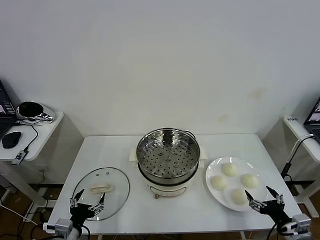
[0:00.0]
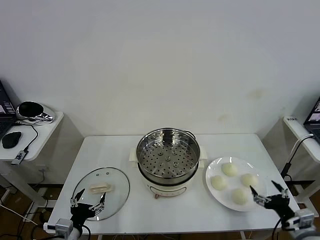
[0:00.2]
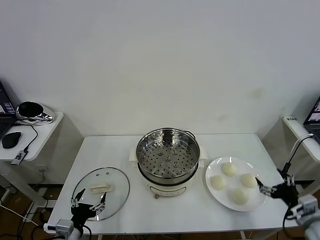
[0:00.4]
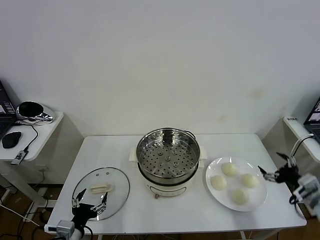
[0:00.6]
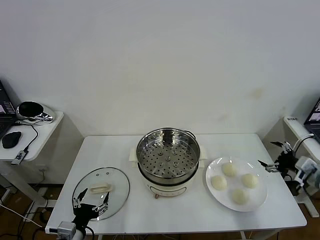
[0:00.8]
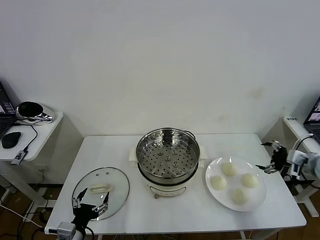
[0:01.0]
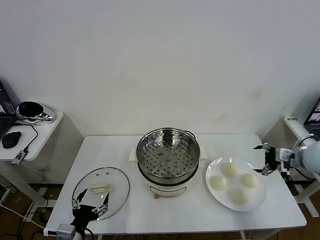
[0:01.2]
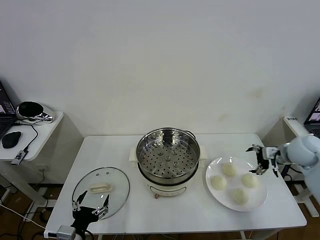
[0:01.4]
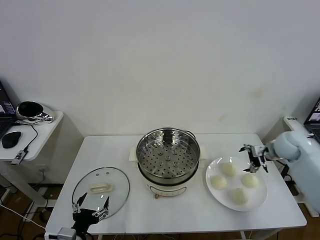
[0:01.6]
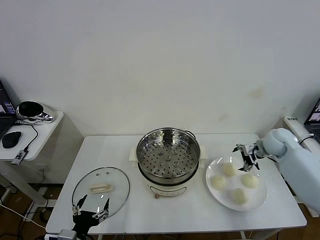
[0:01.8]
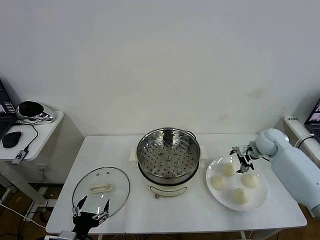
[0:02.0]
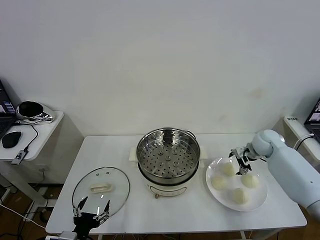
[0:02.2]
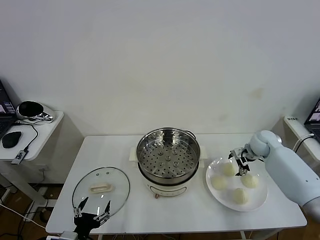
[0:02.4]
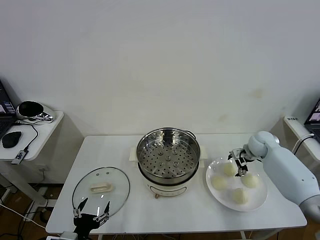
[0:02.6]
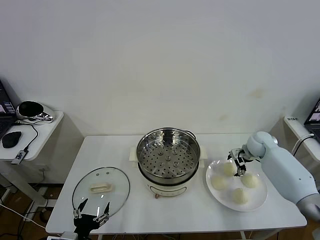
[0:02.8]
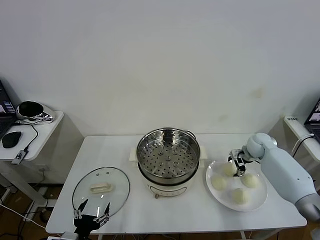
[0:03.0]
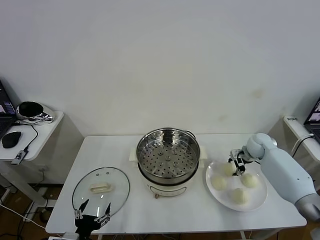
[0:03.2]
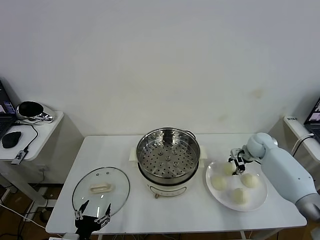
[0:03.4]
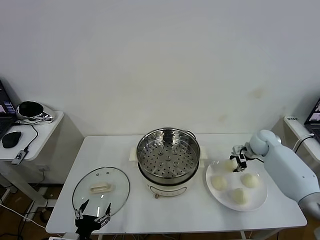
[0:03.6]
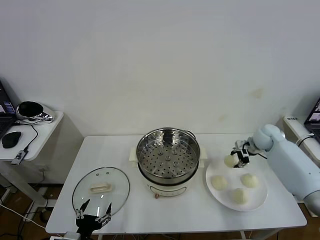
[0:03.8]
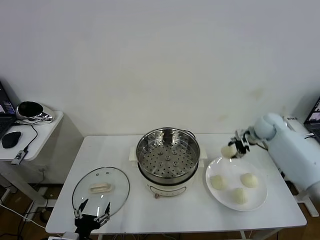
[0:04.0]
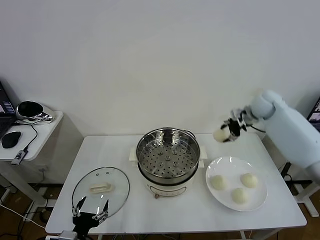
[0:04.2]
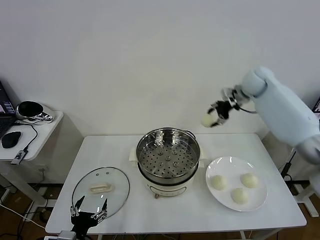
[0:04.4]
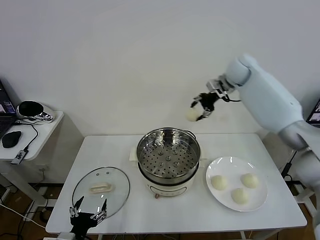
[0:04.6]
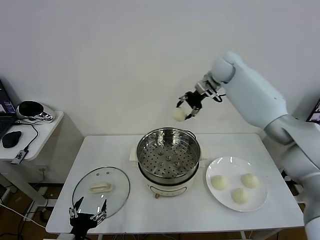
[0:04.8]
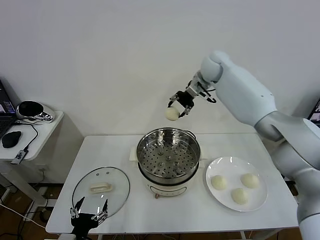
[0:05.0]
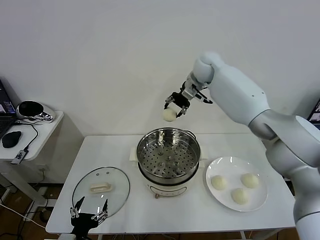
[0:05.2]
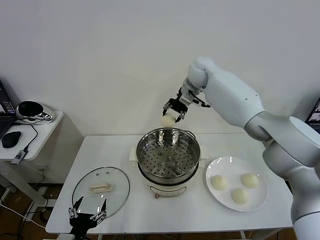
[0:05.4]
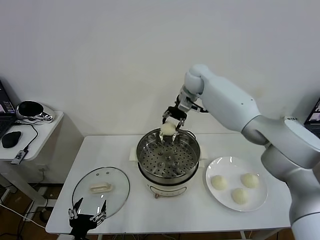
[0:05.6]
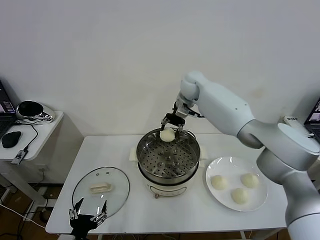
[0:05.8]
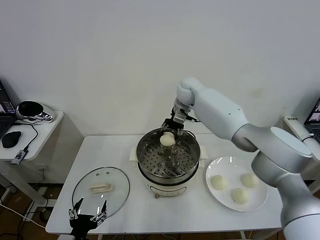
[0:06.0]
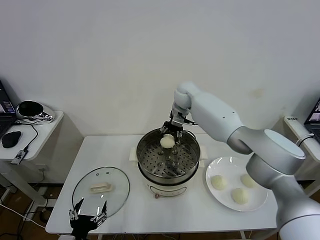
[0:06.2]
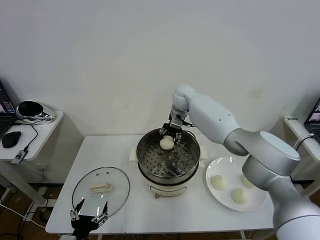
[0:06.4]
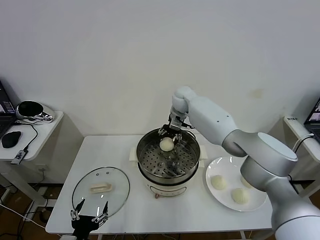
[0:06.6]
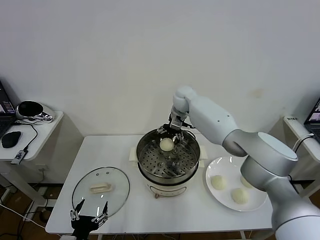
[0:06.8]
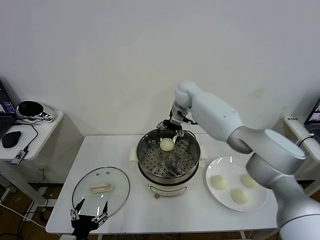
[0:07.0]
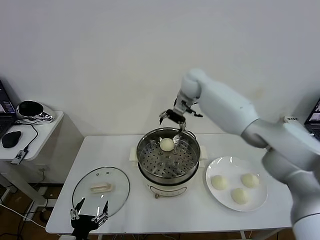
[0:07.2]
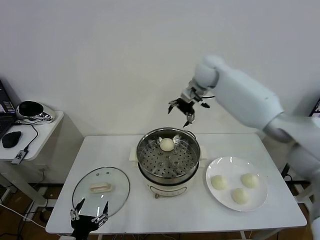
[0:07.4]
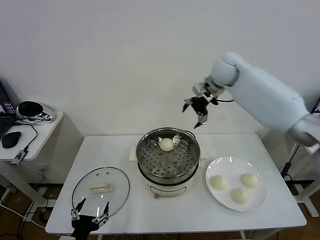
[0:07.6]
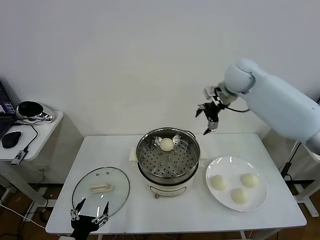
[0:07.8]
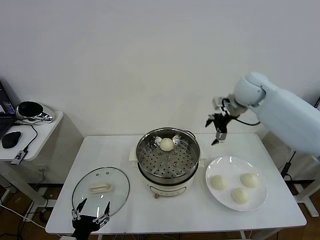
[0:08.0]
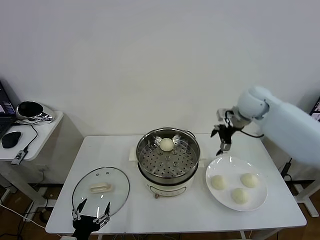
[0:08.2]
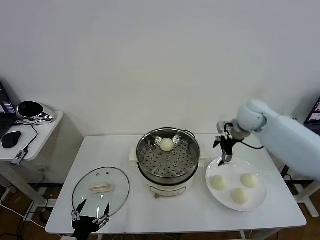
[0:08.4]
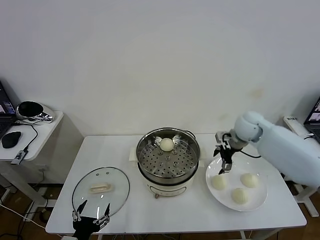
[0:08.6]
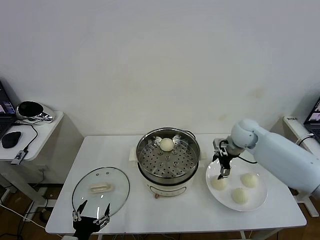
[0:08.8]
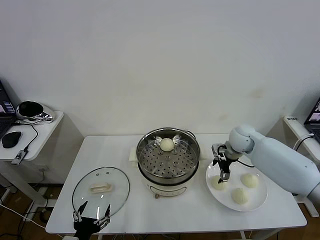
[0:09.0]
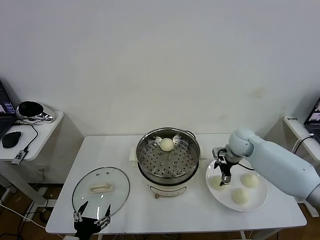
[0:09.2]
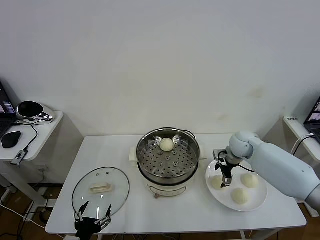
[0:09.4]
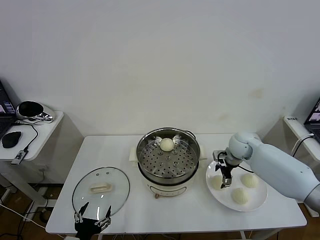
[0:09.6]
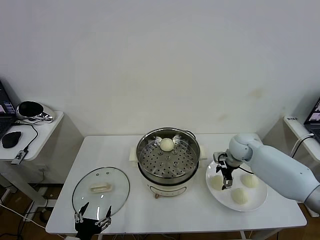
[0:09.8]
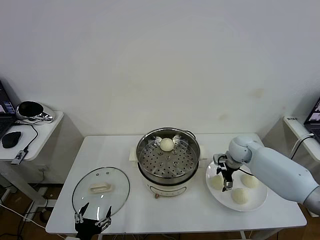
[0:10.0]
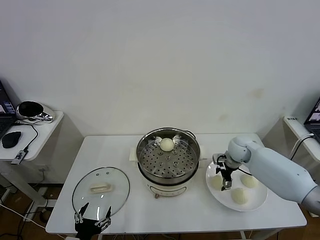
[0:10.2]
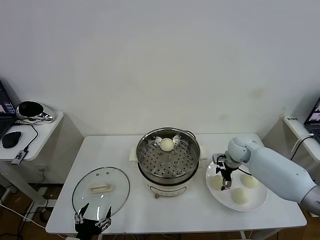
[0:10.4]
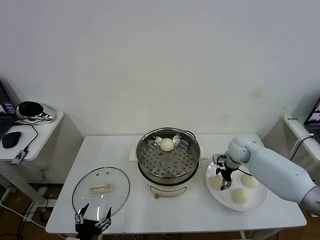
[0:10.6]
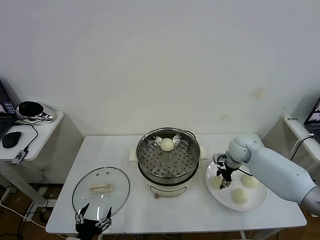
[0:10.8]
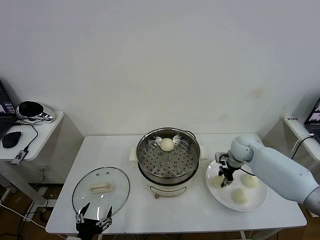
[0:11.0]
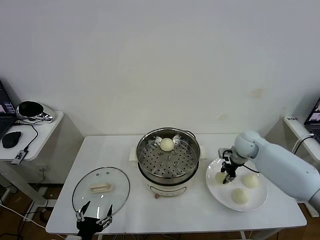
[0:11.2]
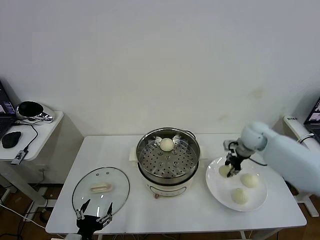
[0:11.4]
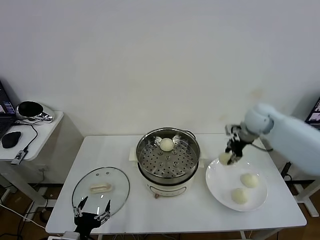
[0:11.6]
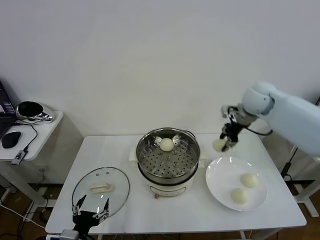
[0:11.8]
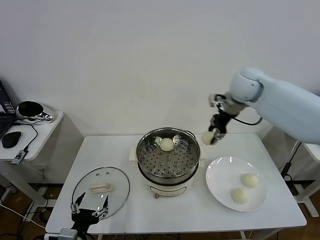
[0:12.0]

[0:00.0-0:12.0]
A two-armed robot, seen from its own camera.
Task of the whole recording: take steamed baozi put them in steamer then cover it.
Step, 0:00.0 to 0:03.4: Grasp the baozi in the plate with right gripper.
Step, 0:03.6 to 0:06.8: Place the baozi on the steamer with right gripper.
Step, 0:07.0 to 0:10.8: Grasp the baozi in the plate with right gripper.
0:01.6 to 0:03.0: The right gripper travels downward by roughly 5 cm, and closes up.
0:03.0 to 0:04.4: The right gripper moves upward and to the left, about 30 cm.
0:04.4 to 0:06.0: The right gripper heads to the left and downward, covering approximately 20 cm.
0:06.0 to 0:07.6: The right gripper travels to the right and upward by about 15 cm, and opens up.
0:07.6 to 0:09.0: The right gripper goes roughly 20 cm downward.
0:09.0 to 0:10.4: The grippers stay close to where they were, moving slightly.
0:10.4 to 0:12.0: The right gripper moves upward, roughly 25 cm, and closes.

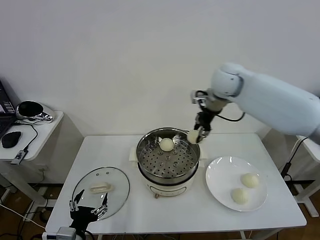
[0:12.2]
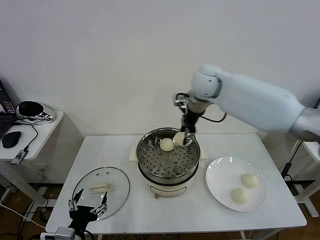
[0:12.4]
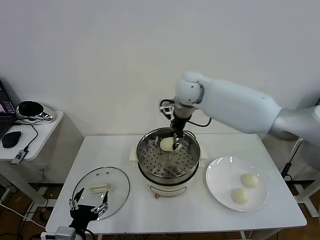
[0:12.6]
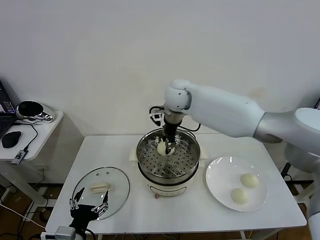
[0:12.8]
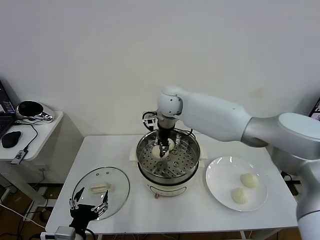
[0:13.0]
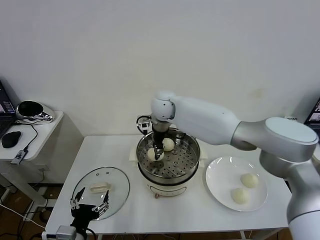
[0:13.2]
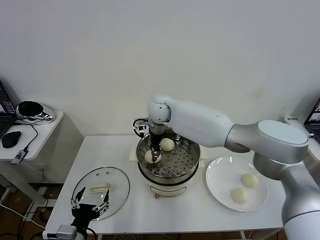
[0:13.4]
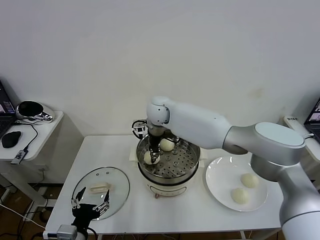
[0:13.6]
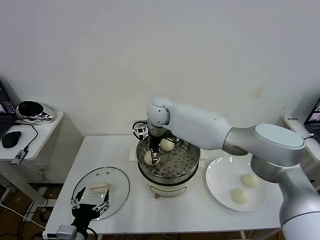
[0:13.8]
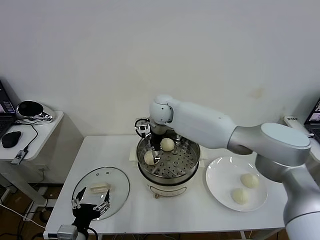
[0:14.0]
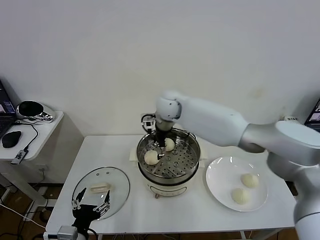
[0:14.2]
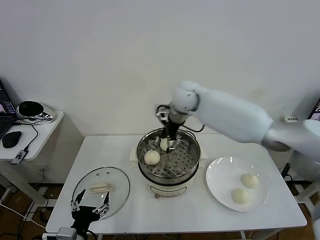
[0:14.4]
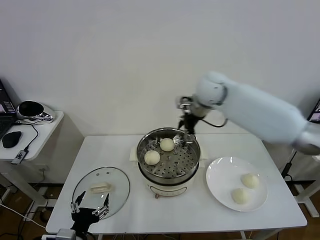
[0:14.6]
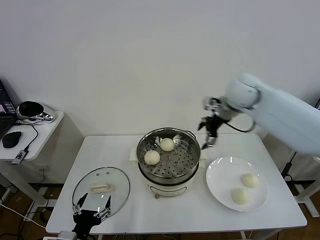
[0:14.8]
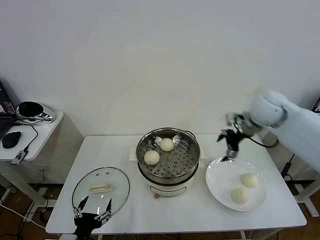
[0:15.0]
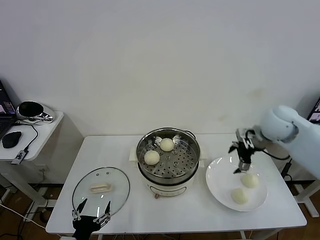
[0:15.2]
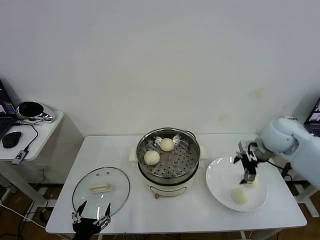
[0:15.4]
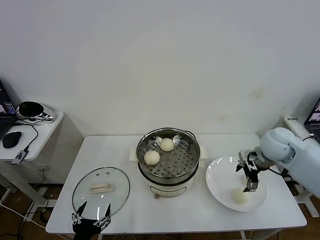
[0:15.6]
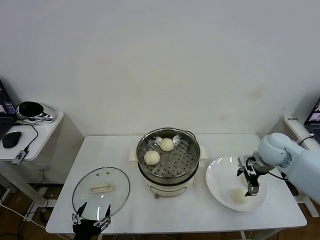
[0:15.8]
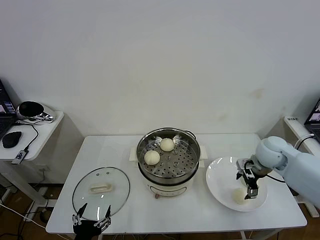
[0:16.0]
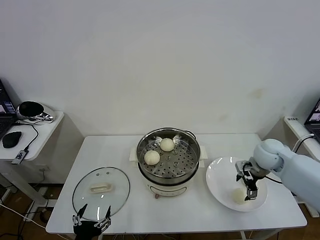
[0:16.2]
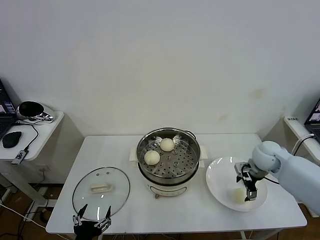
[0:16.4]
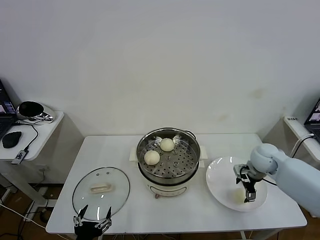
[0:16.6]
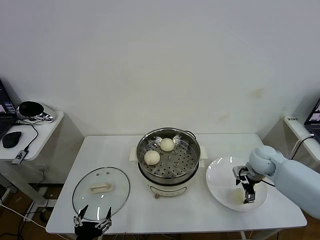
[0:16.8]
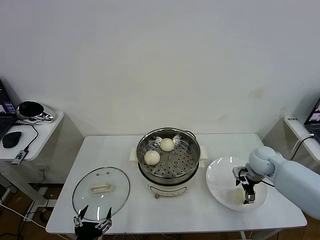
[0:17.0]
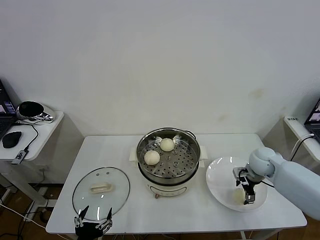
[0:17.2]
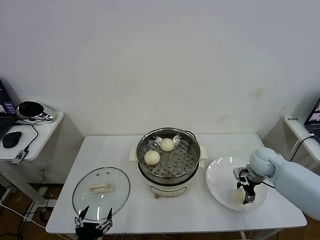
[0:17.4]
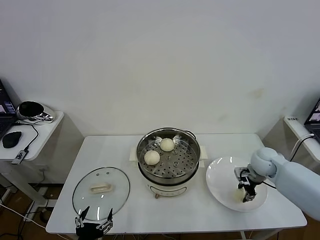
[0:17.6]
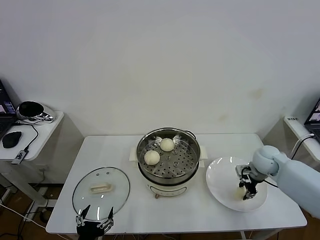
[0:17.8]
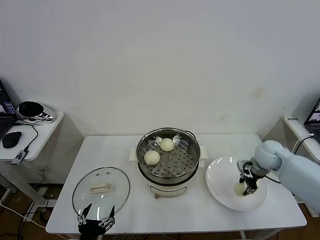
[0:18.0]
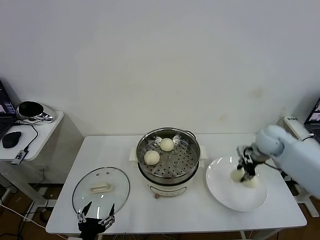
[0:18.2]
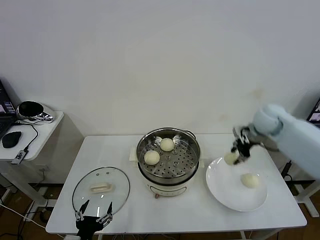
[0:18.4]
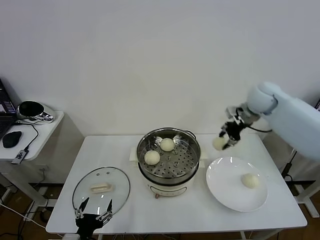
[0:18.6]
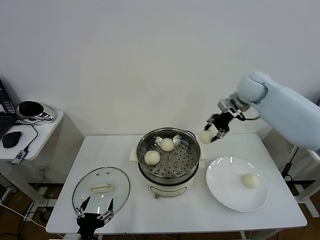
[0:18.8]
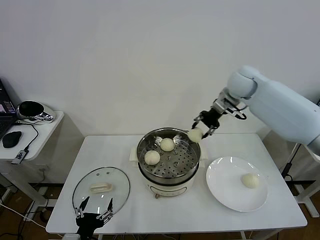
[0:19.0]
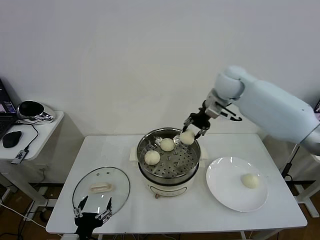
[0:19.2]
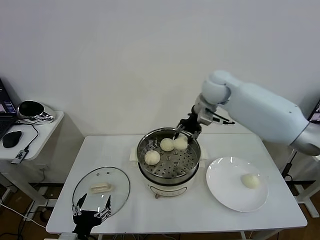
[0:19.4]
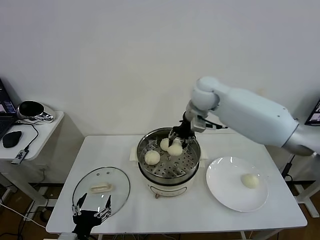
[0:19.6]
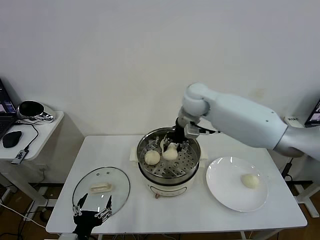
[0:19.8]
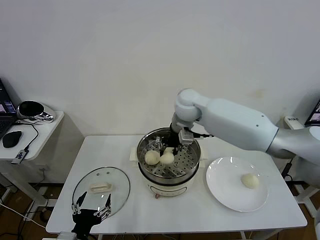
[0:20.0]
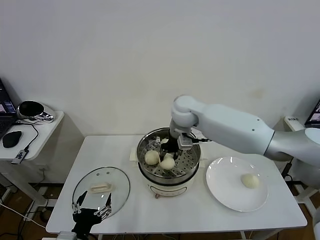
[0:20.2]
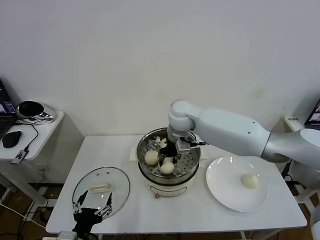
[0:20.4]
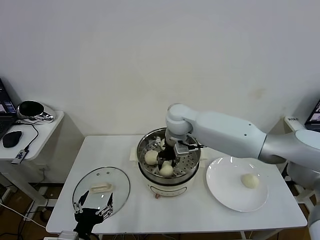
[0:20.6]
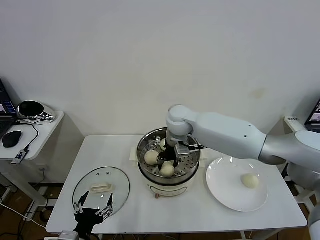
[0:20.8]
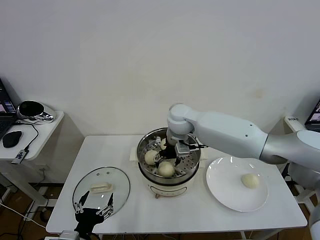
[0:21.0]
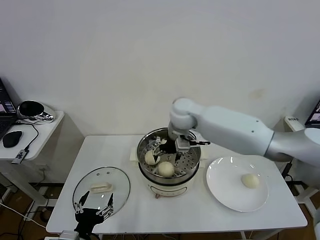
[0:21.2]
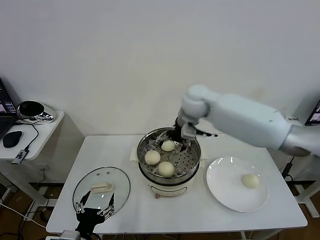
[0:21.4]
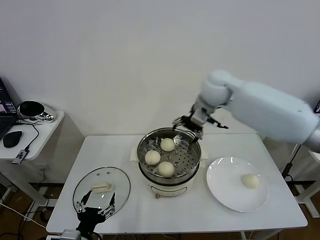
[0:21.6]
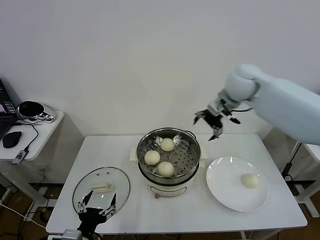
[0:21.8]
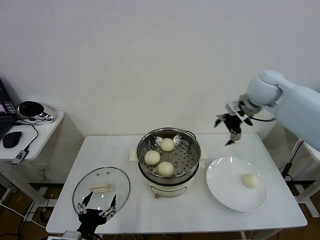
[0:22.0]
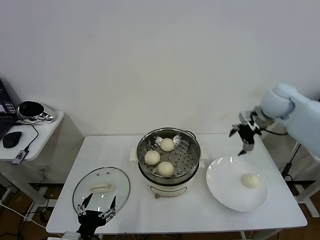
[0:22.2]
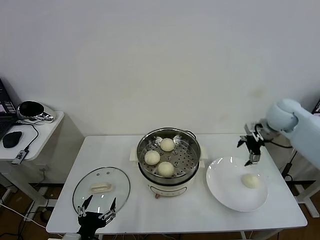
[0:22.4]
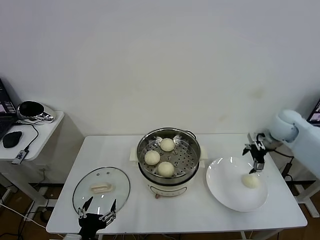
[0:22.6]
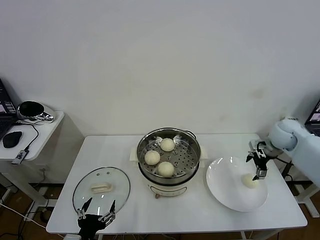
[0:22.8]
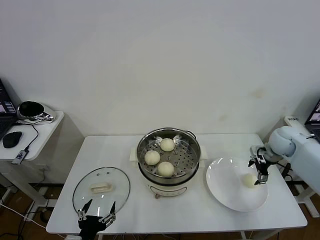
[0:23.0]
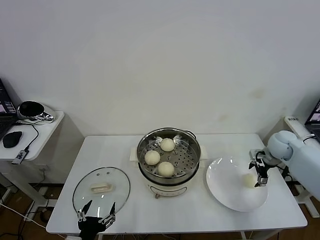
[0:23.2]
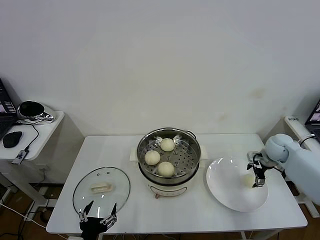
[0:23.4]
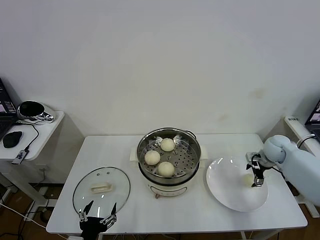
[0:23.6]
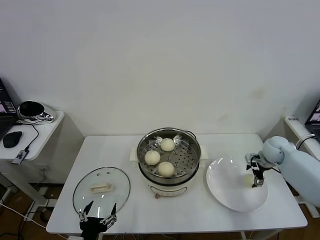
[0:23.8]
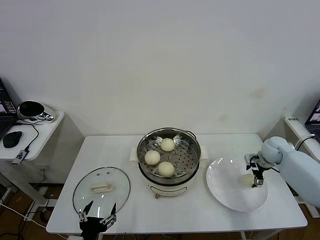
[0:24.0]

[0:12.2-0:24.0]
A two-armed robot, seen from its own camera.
Task of the whole recording: take steamed baozi put them in steamer then cover it.
Step, 0:12.2 to 0:14.0: Place the baozi on the steamer with right gripper.
Step, 0:14.2 to 0:17.6: Grasp the baozi in the plate with right gripper.
Step, 0:17.8 to 0:21.2: Place the baozi on the steamer with right gripper.
0:12.2 to 0:13.6: The right gripper moves to the left and downward, roughly 20 cm.
0:13.6 to 0:15.2: The right gripper travels to the right by some 35 cm, and opens its fingers.
0:15.2 to 0:16.6: The right gripper shifts approximately 15 cm downward.
0:16.6 to 0:18.2: The right gripper heads upward, covering approximately 10 cm, and closes its fingers.
0:18.2 to 0:19.6: The right gripper heads to the left and upward, covering some 25 cm.
0:19.6 to 0:21.0: The right gripper moves downward and to the left, some 10 cm, and opens its fingers.
0:21.0 to 0:22.6: The right gripper heads to the right, covering roughly 35 cm.
0:22.6 to 0:24.0: The right gripper shifts about 10 cm downward.
